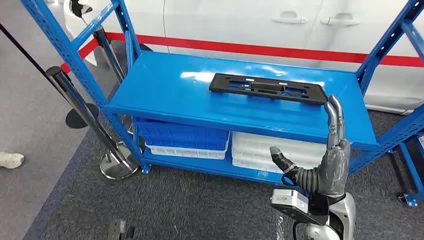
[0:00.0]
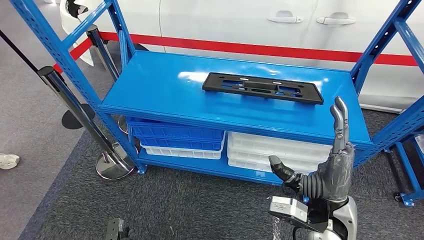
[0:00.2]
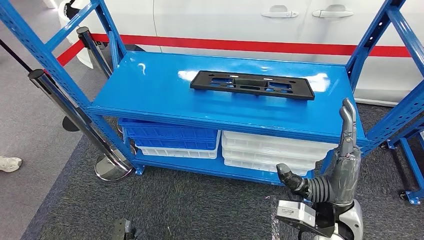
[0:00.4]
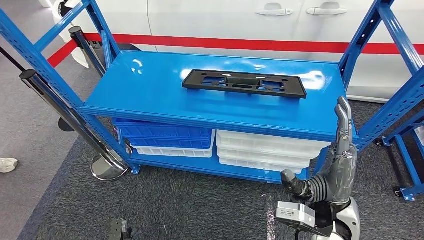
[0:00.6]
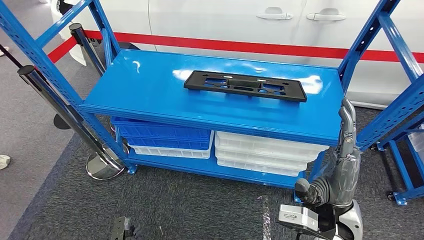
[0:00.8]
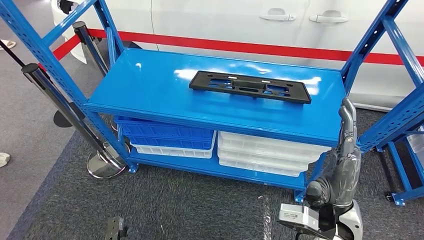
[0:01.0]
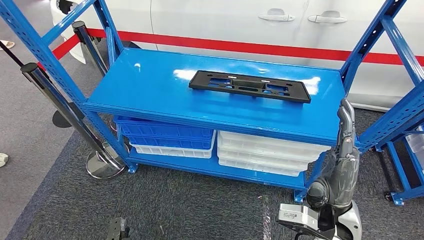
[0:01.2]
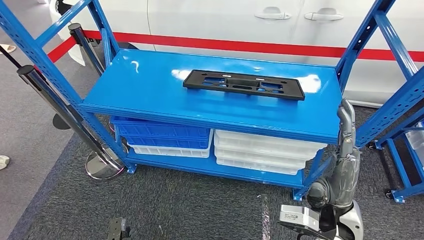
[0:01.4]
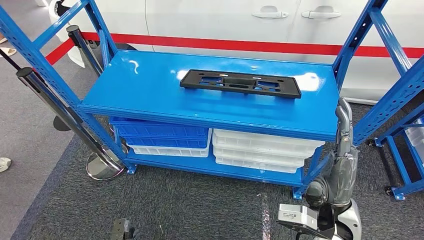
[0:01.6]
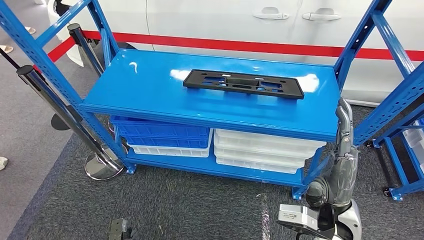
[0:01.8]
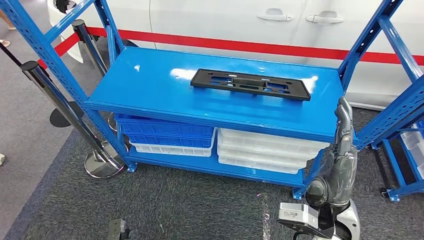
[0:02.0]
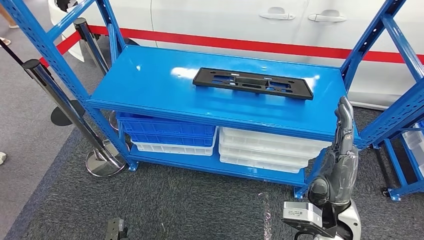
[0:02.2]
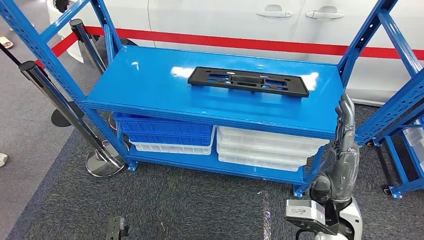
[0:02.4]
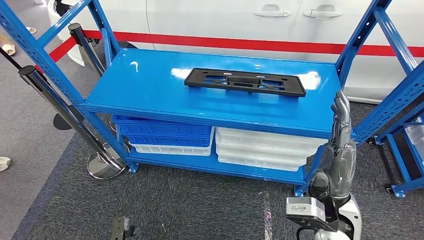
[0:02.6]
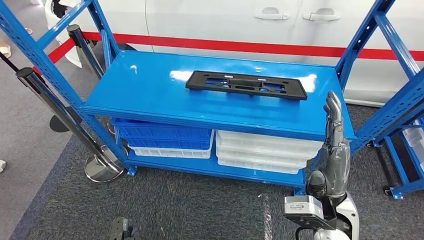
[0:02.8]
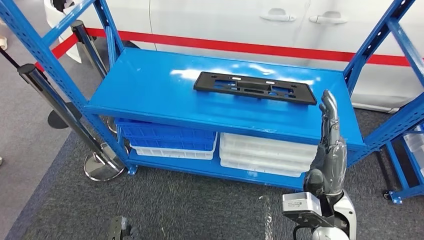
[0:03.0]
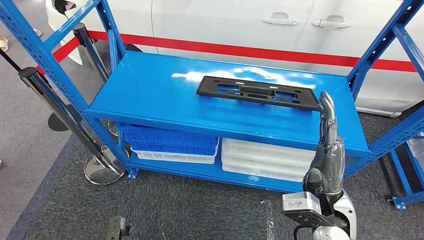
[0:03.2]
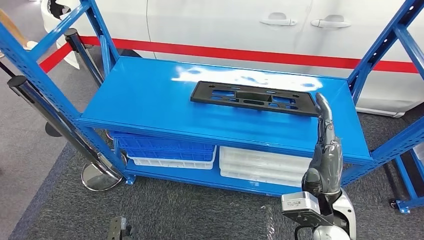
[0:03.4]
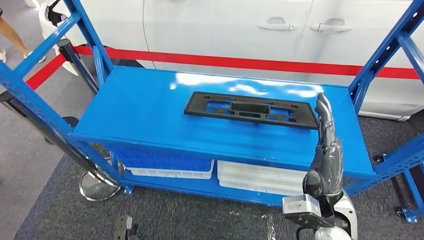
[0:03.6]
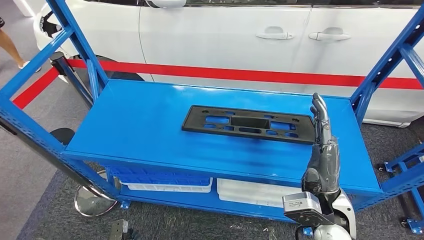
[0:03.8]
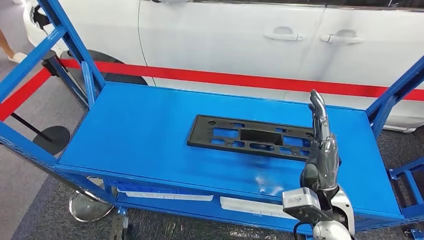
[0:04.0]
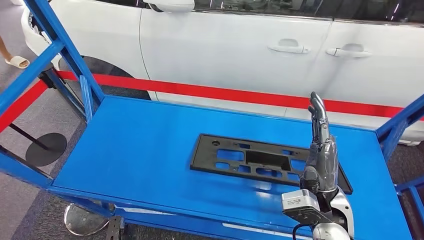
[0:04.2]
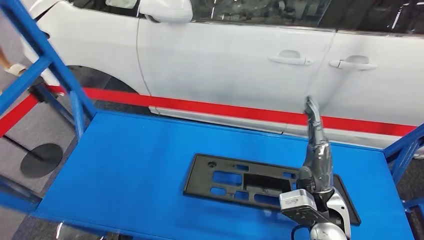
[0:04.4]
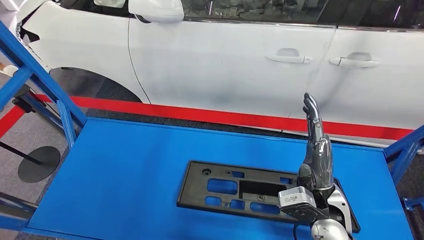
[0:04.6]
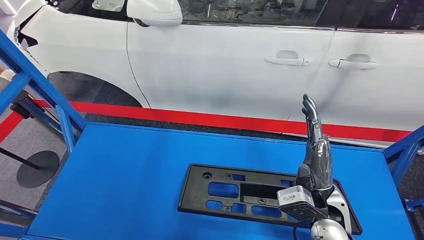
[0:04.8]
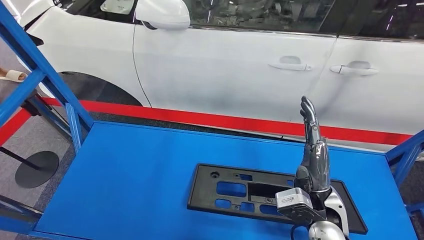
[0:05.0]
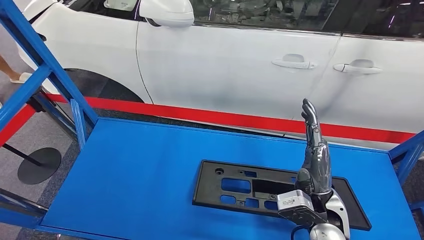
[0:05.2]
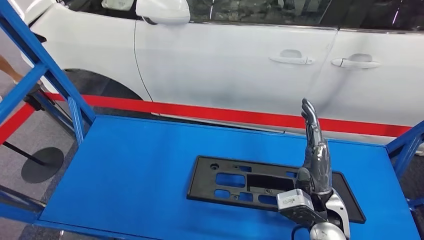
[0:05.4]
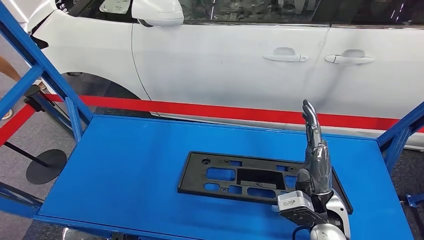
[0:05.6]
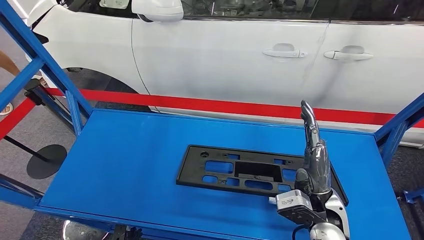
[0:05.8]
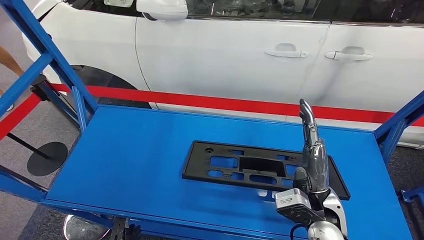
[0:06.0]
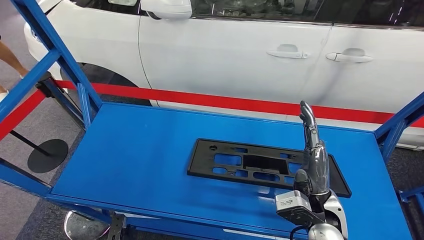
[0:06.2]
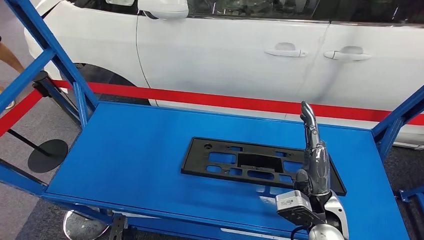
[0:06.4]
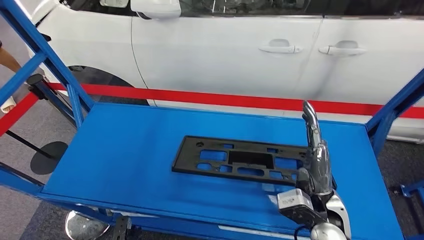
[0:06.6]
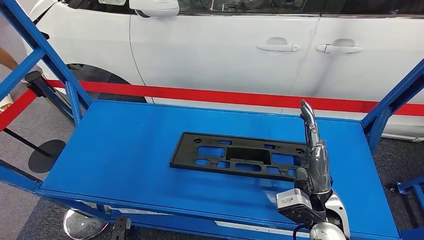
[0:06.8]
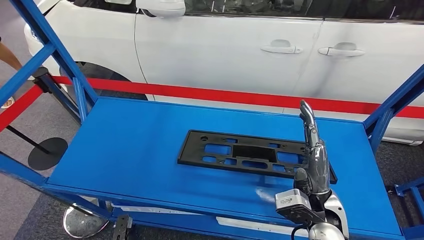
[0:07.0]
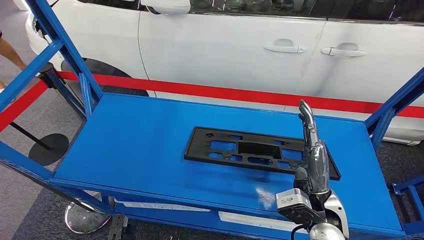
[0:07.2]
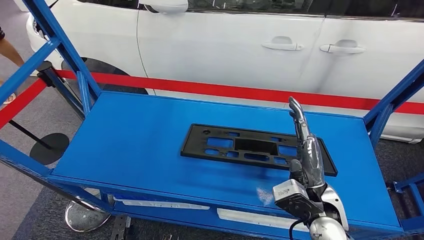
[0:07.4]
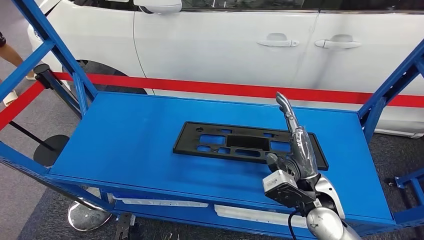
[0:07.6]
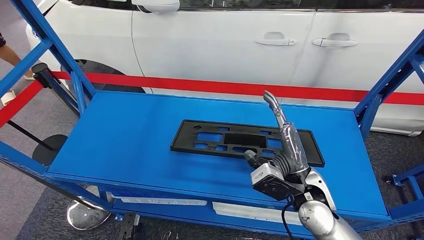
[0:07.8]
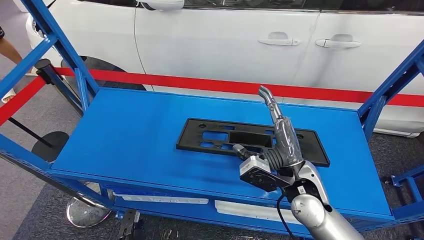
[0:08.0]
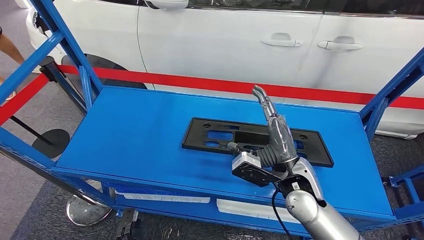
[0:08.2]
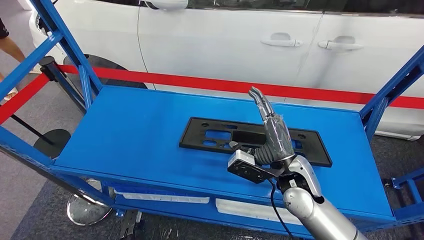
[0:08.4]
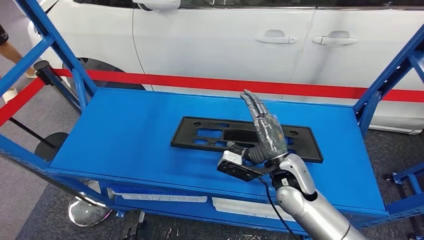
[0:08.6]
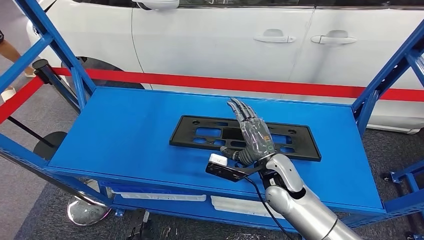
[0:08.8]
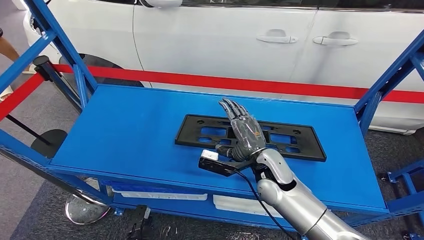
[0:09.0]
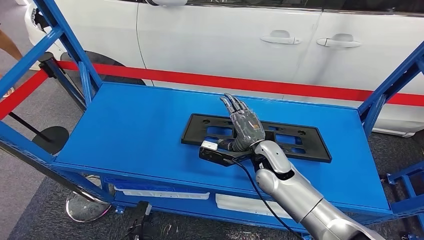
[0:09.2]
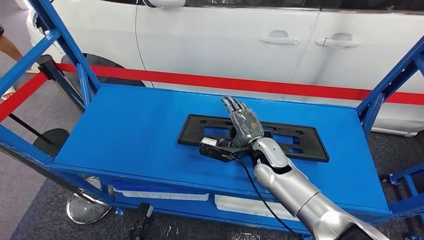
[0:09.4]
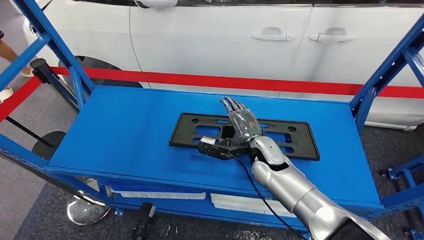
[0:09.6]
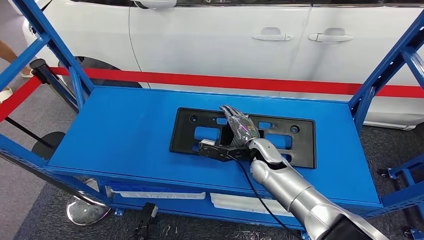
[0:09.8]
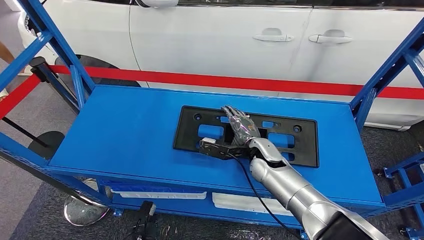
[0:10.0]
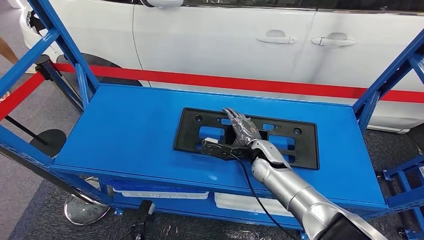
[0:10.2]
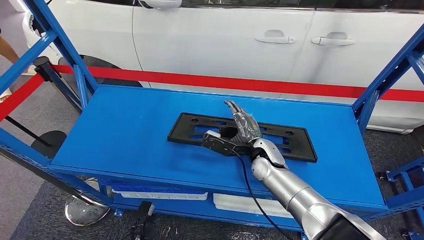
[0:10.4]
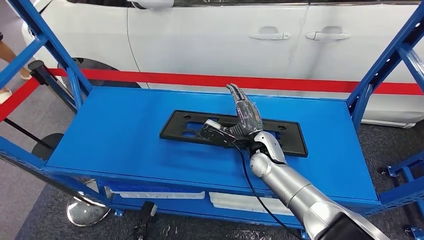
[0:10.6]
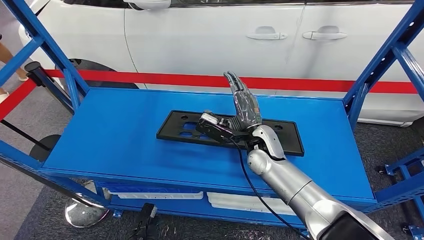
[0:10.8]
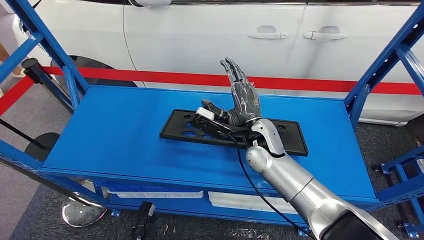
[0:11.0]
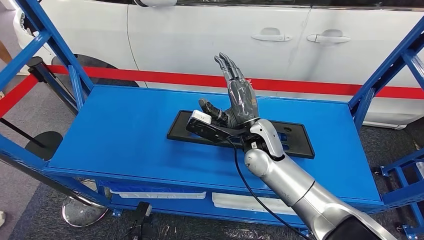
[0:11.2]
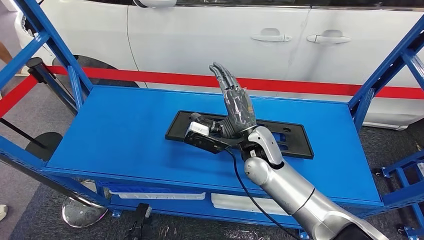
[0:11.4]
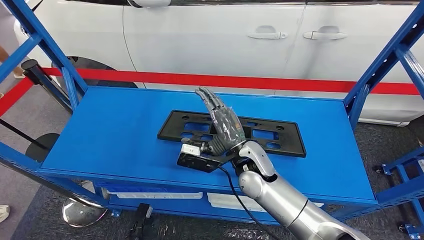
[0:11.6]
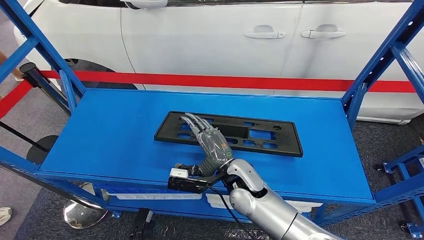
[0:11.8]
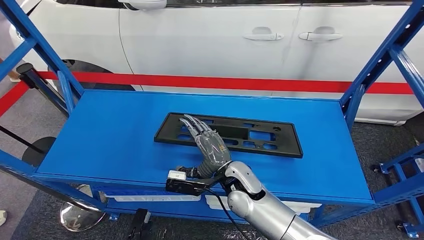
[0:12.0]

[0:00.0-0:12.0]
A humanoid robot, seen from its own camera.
0:09.0 to 0:10.4: The right hand travels forward by about 5 cm.

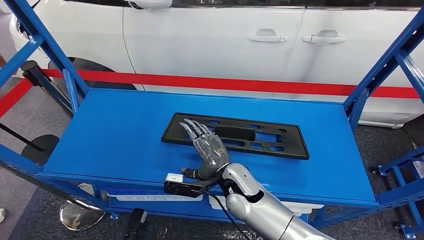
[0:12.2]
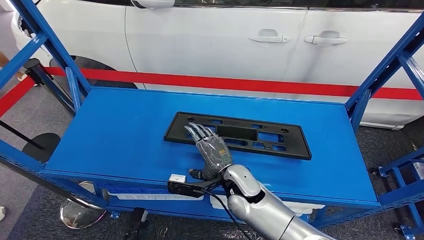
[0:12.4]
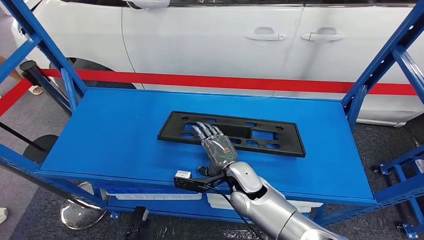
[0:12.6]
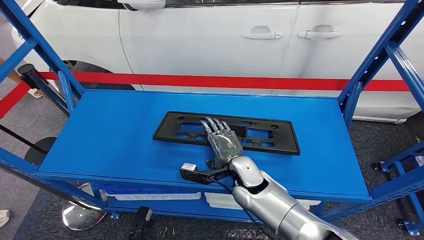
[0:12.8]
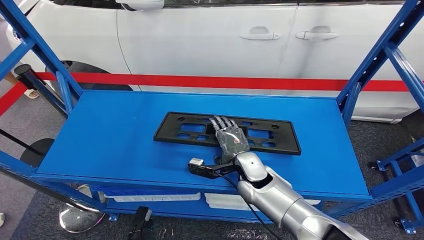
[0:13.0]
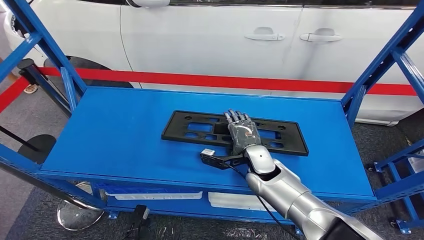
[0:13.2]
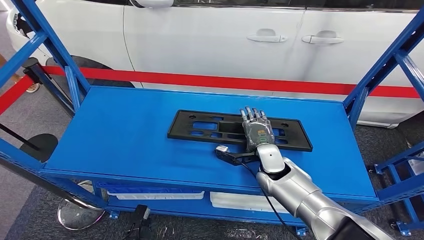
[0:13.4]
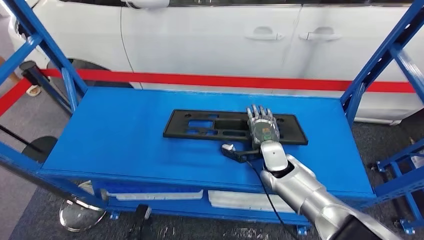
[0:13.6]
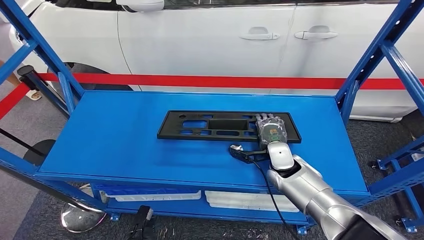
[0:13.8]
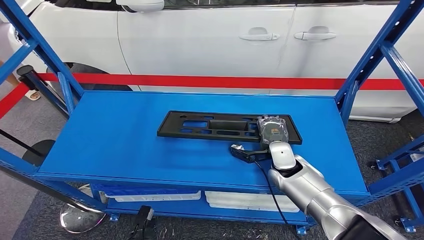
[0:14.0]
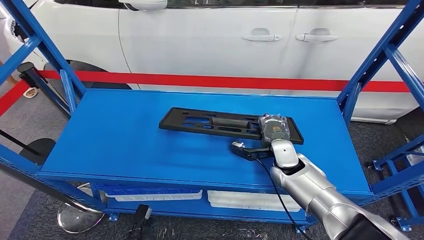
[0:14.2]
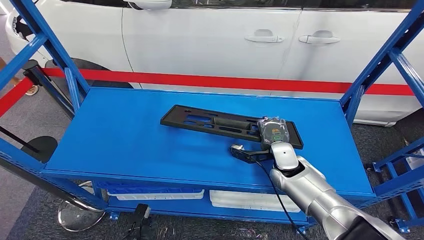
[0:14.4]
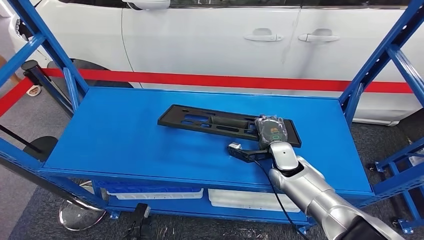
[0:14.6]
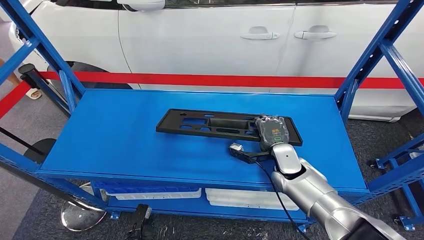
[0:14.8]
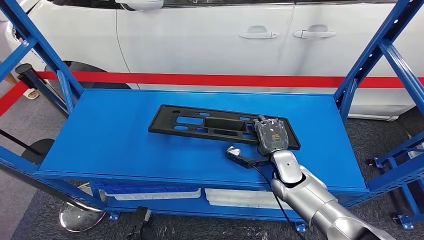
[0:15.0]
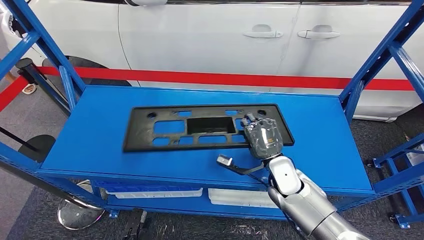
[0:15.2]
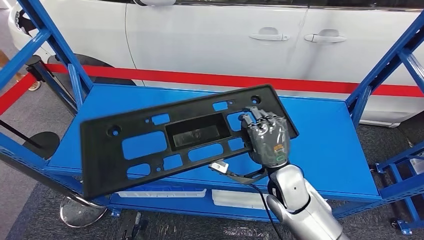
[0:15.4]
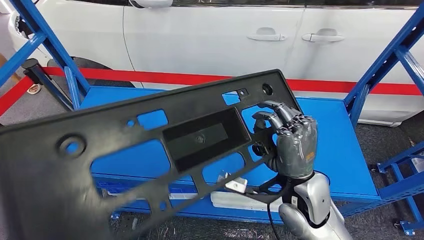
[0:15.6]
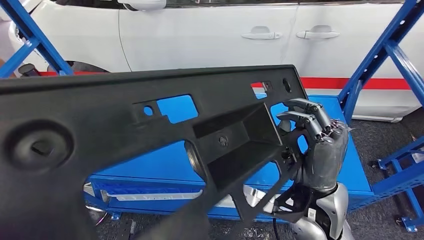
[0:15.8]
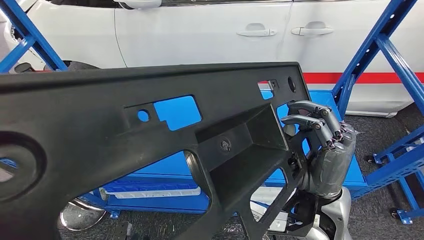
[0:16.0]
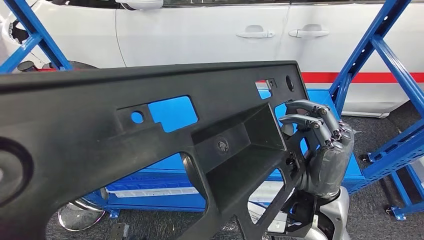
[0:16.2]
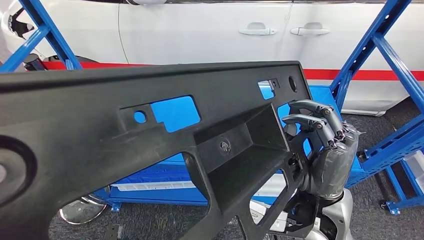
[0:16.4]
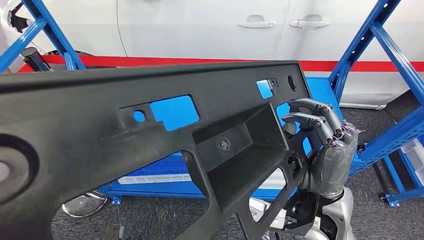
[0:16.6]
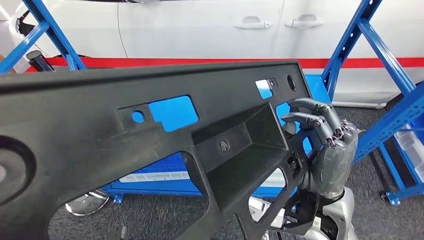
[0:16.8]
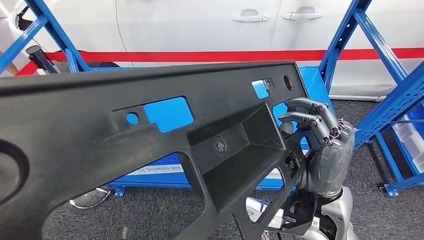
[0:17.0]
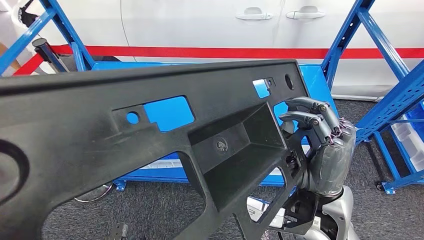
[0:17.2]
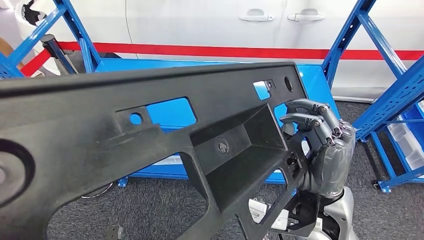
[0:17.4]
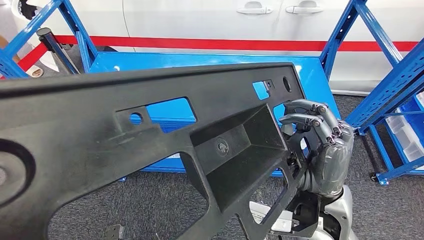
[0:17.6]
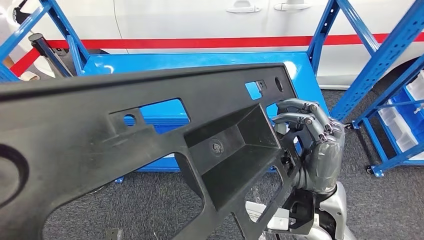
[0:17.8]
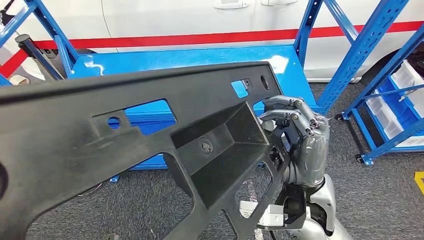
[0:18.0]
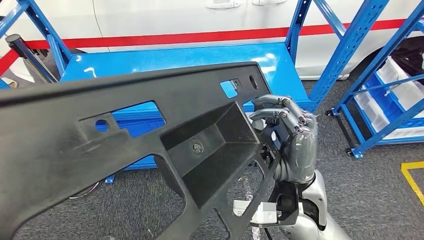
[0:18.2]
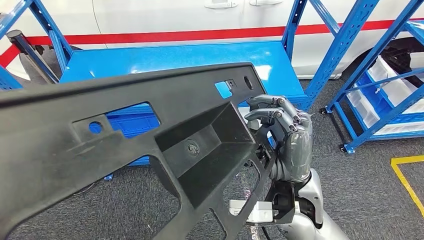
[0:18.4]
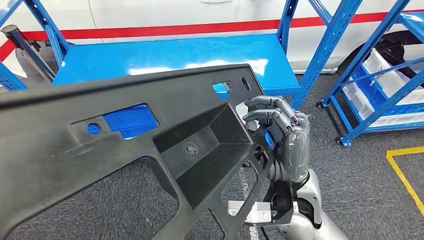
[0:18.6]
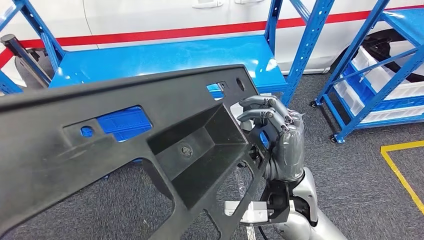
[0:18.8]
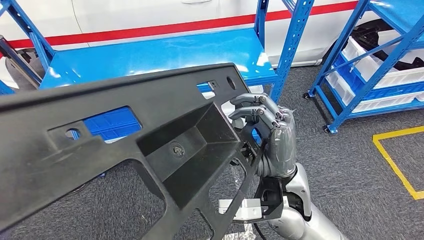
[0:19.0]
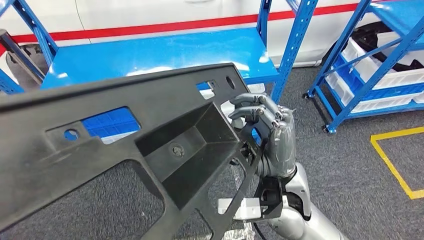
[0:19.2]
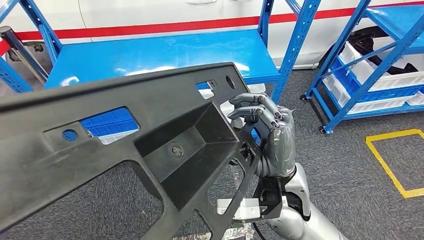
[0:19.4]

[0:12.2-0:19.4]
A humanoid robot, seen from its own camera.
Step, 0:12.2 to 0:15.2: Pick up the large material from the shelf.
